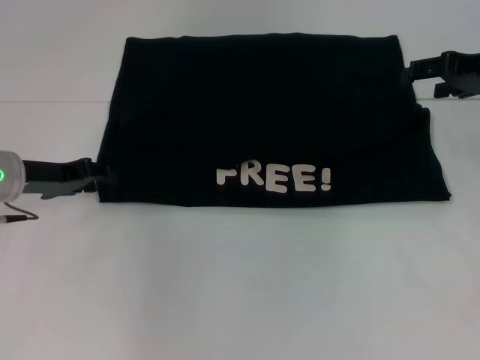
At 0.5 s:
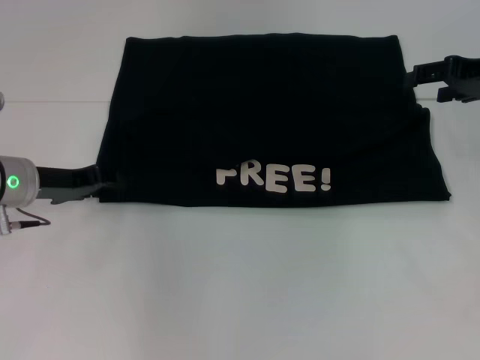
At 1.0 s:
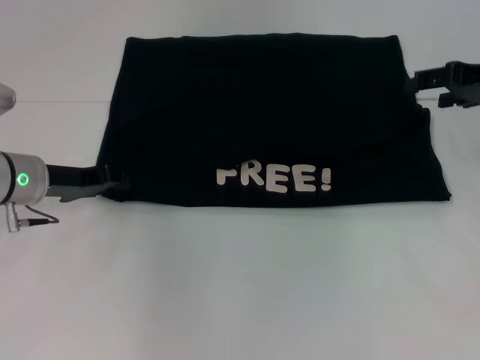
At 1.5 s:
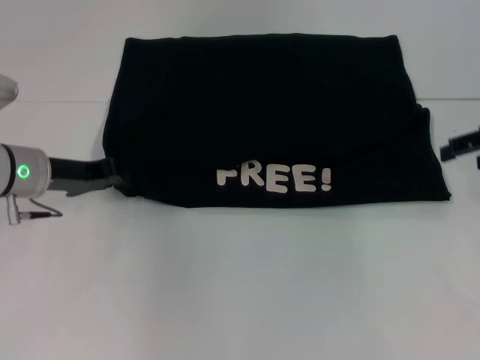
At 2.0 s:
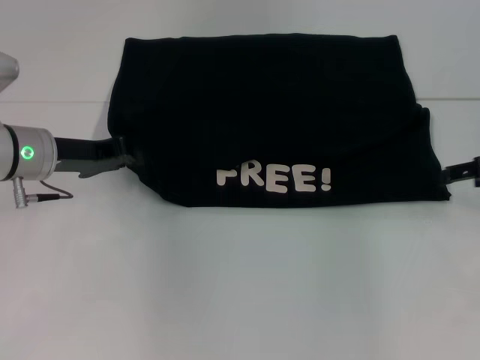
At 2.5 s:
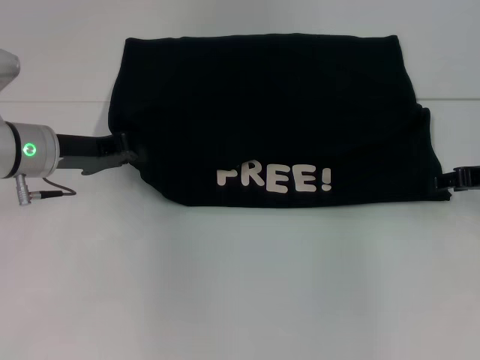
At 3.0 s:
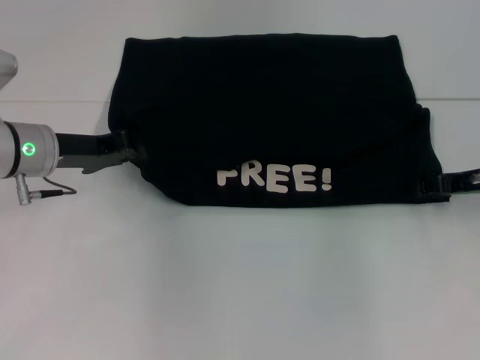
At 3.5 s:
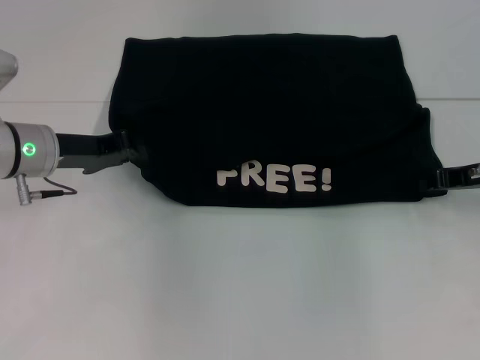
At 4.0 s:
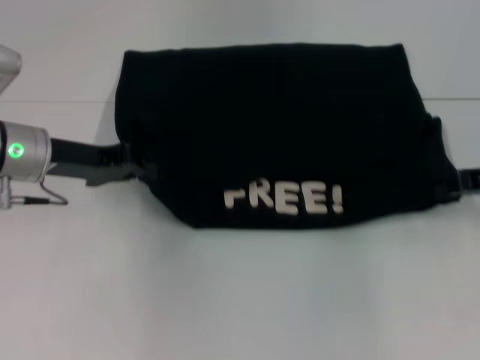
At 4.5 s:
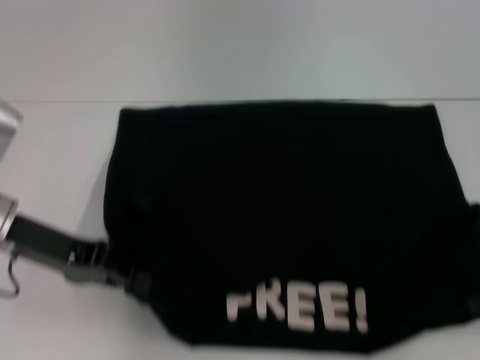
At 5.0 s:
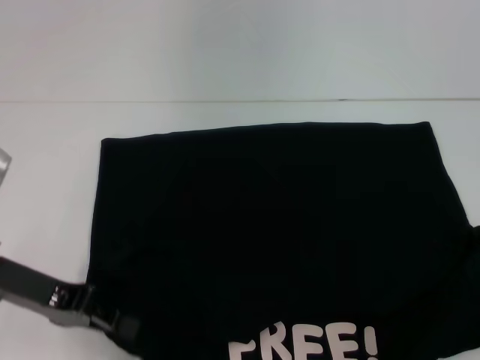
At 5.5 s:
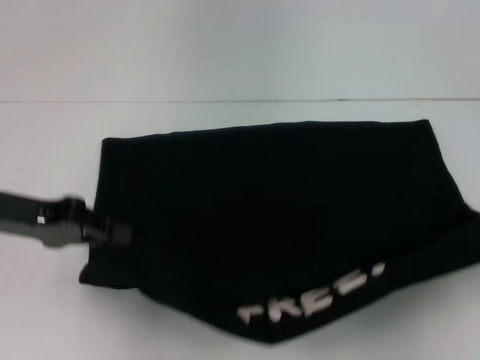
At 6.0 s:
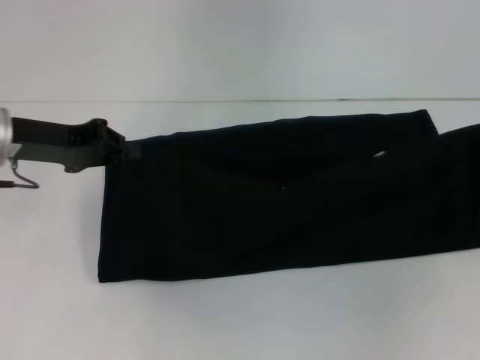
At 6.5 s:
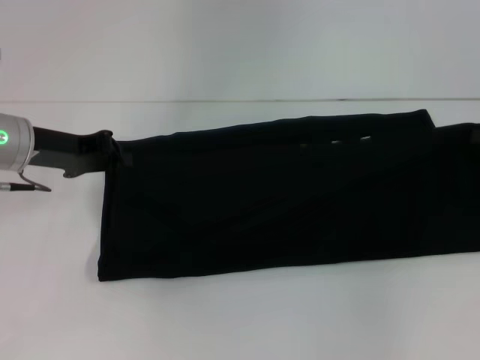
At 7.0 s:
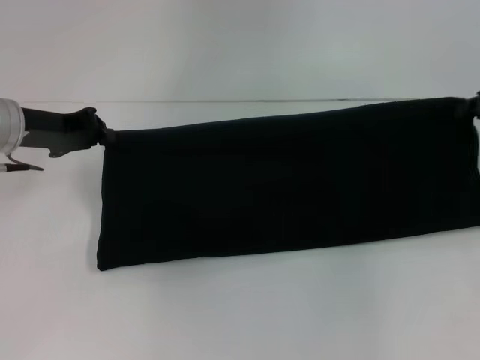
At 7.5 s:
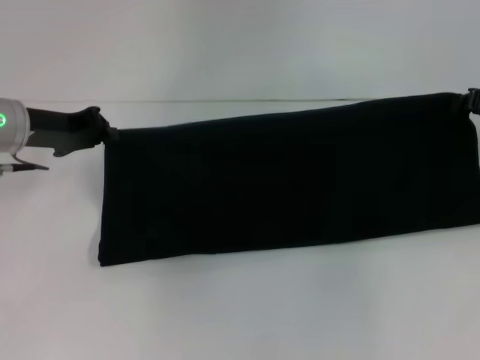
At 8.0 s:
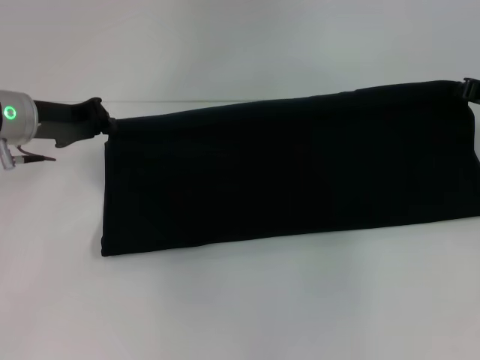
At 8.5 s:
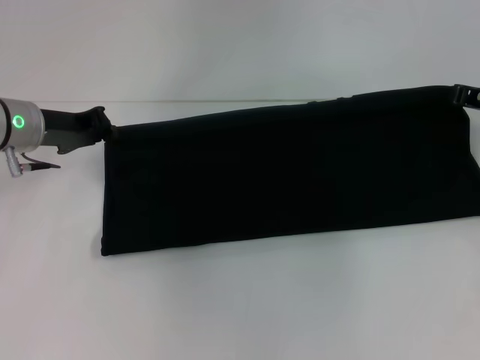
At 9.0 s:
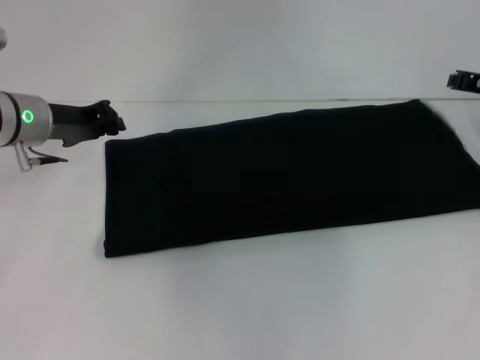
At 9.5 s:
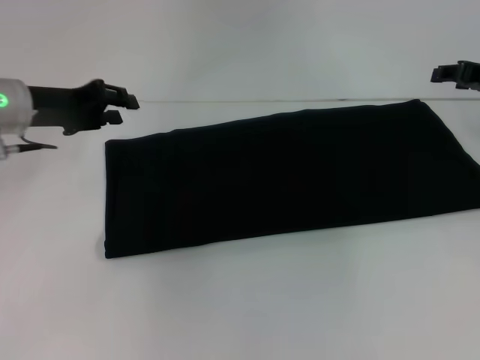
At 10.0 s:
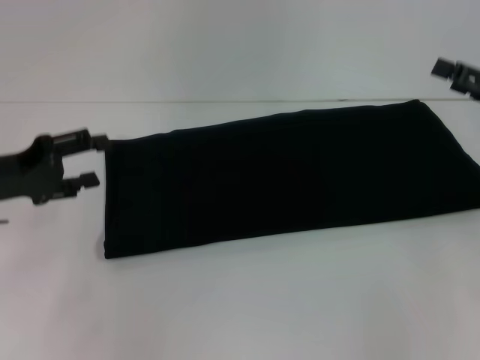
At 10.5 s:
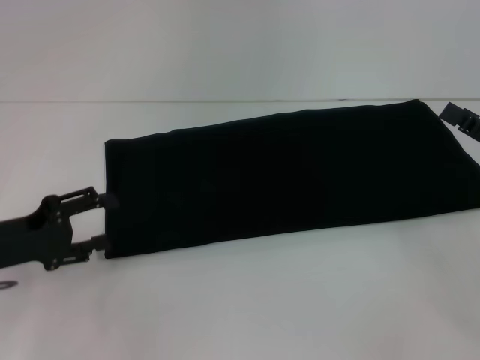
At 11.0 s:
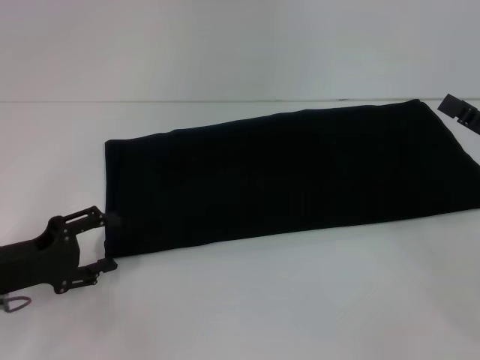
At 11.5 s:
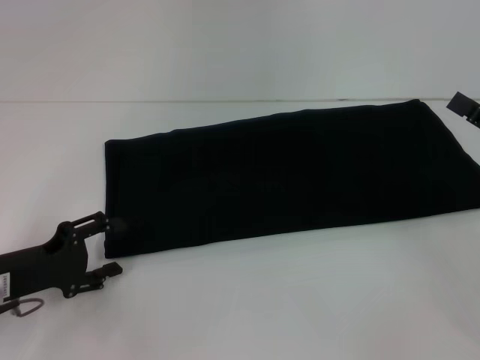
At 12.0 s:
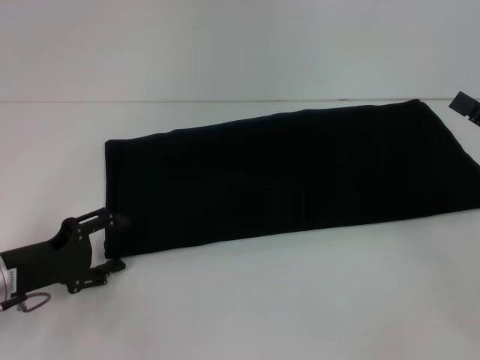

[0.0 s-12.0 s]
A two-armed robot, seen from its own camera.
Step, 0.0 to 4.5 s: Pull the clothes with your left hand.
Step, 0.0 to 4.5 s: Pull the clothes with your right hand.
Step, 5.0 to 9.0 s: Fold the clothes with your right hand.
0.0 to 2.0 s: The left gripper closes up. Meanwhile the right gripper goes some 10 cm downward and backward.
2.0 to 4.0 s: The right gripper closes its fingers.
4.0 to 6.0 s: The right gripper shifts some 5 cm to the right, and reaches about 10 cm backward, then returns, while the left gripper goes backward and returns, approximately 10 cm each way.
6.0 to 8.0 s: The right gripper shifts about 10 cm forward and to the left.
8.0 to 10.0 s: The right gripper travels backward by about 5 cm, and opens its fingers, while the left gripper moves backward and to the left, roughly 10 cm, and opens its fingers.
10.0 to 12.0 s: The left gripper heads downward and backward, covering about 10 cm. Meanwhile the right gripper shifts approximately 5 cm backward.

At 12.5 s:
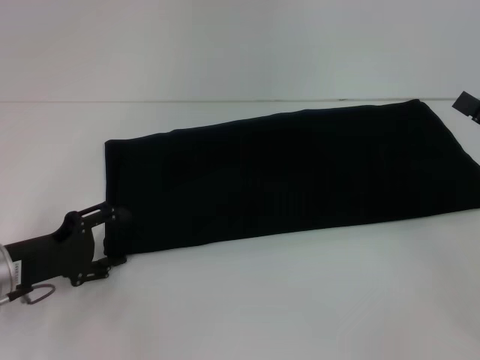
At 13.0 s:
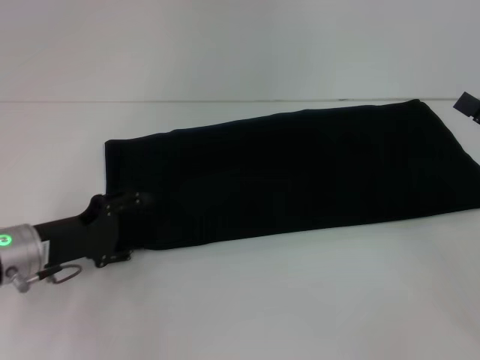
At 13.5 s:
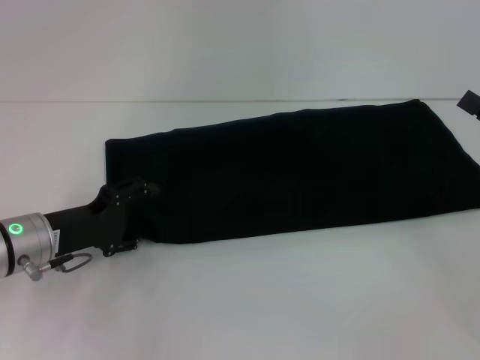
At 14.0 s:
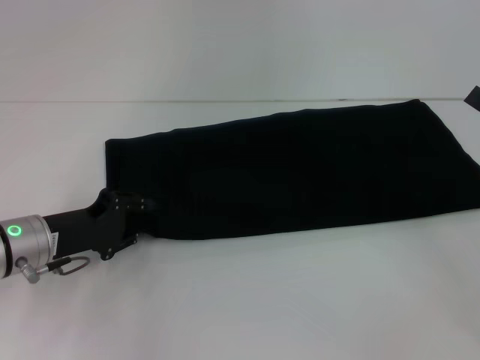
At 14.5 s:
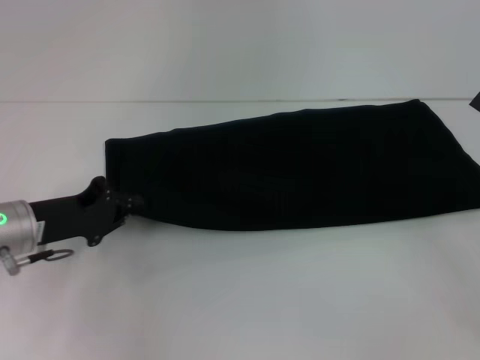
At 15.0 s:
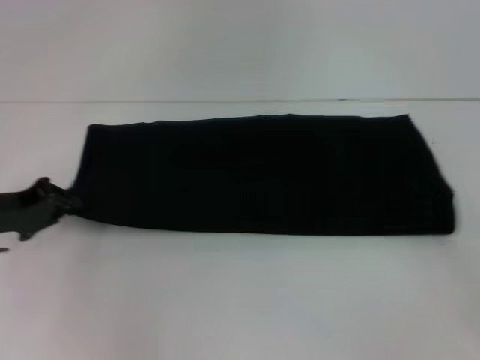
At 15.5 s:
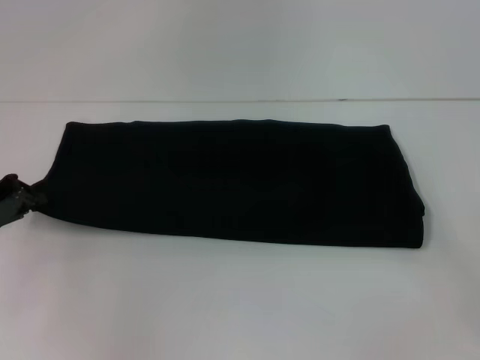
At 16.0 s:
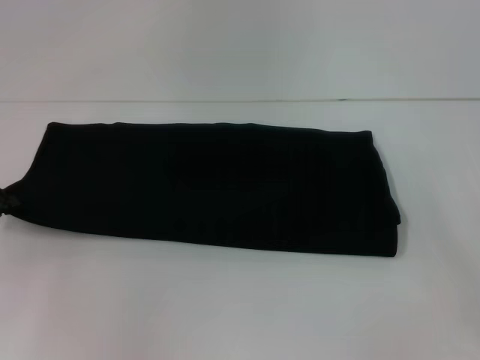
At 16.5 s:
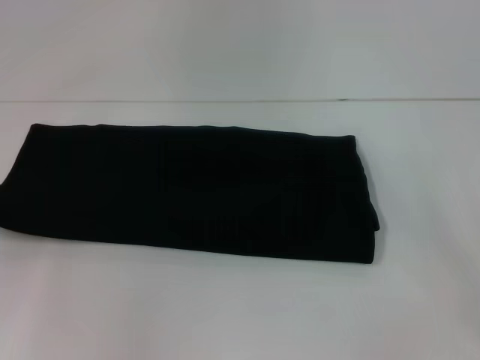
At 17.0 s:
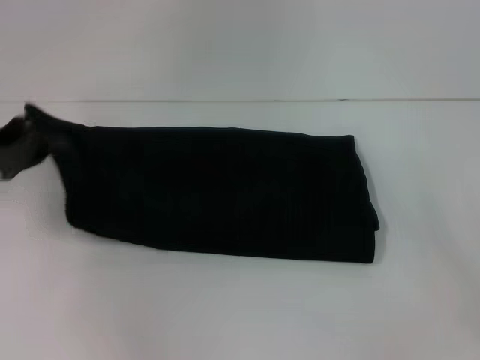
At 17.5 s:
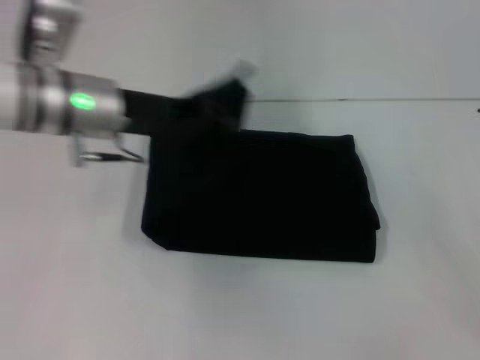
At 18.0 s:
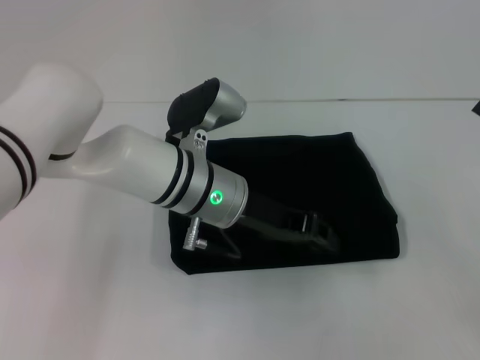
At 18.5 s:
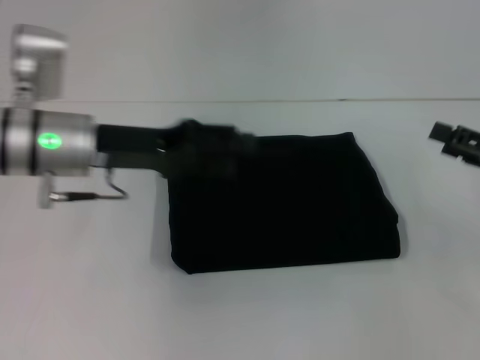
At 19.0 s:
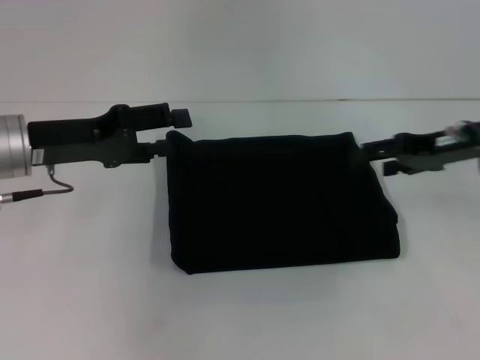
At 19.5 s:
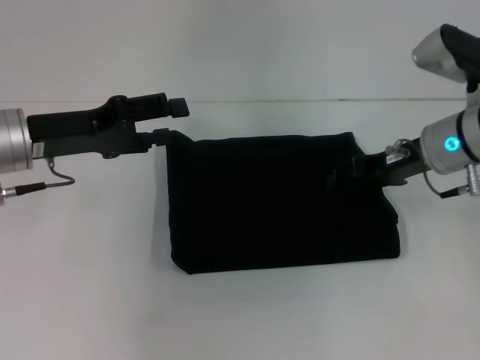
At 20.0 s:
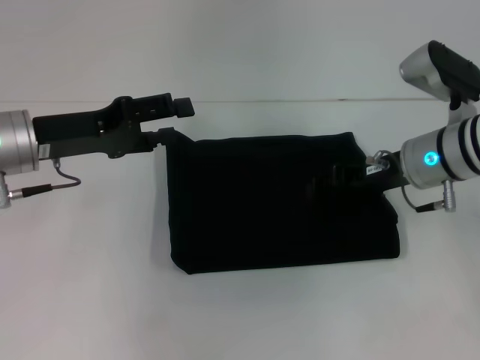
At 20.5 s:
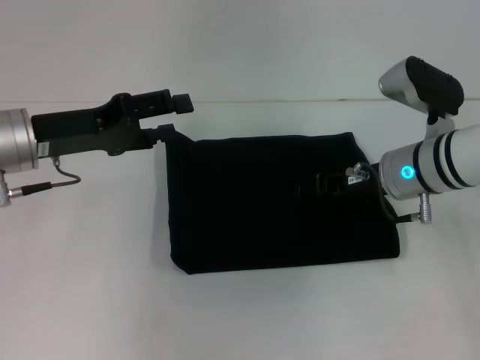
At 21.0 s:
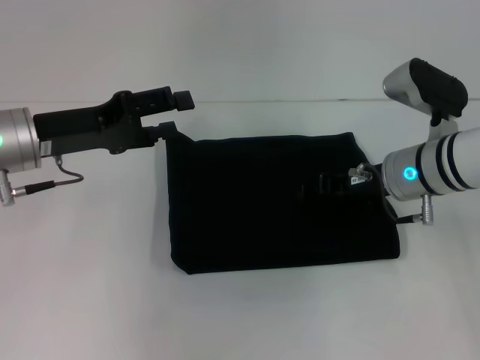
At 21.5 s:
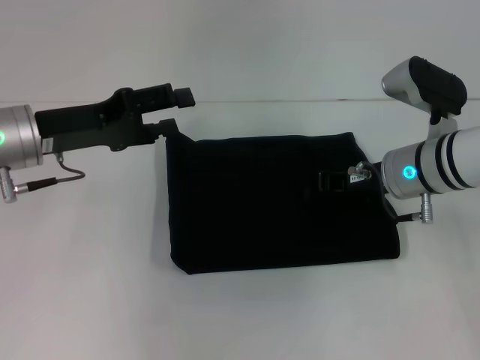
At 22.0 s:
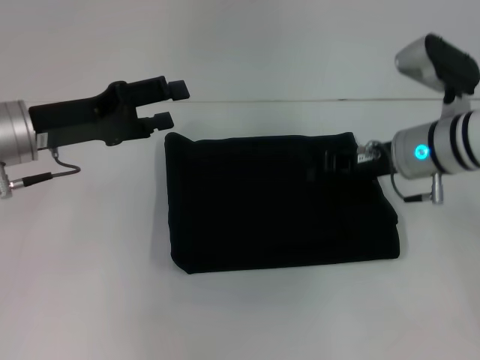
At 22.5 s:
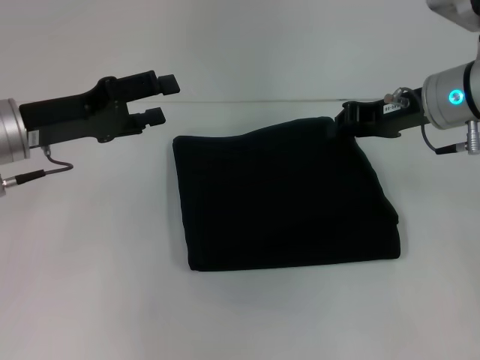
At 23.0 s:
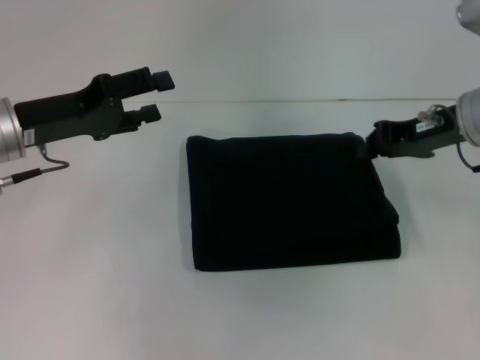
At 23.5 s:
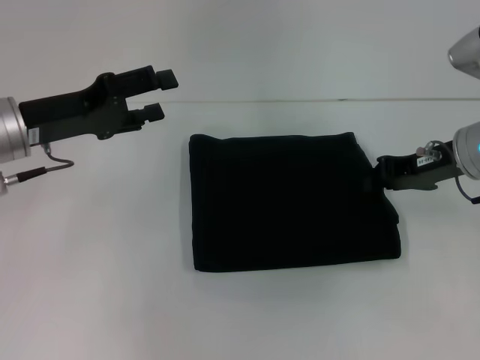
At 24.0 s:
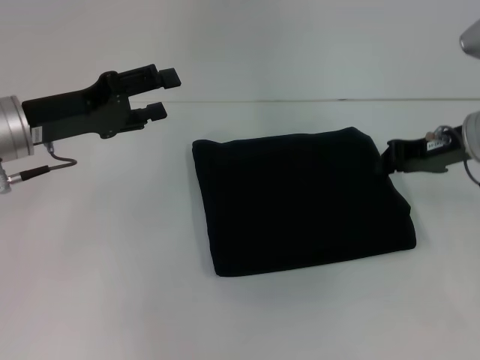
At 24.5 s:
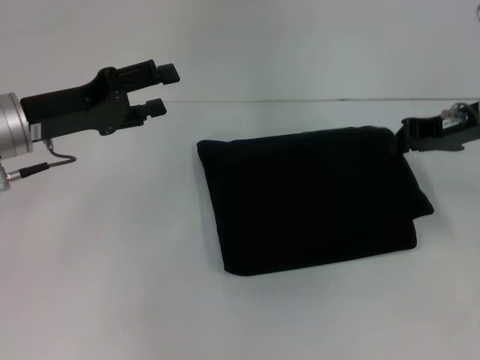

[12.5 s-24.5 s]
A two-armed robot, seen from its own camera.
Step, 12.5 to 18.0 s: Fold the clothes with your left hand.
12.5 to 14.5 s: The left gripper moves about 5 cm, and closes.
14.5 to 16.5 s: The left gripper moves to the left, approximately 10 cm.
16.5 to 18.5 s: The left gripper travels to the right by roughly 20 cm, and opens up.
18.5 to 20.5 s: The left gripper goes some 5 cm to the left, and opens up. Meanwhile the right gripper moves to the left and forward, about 20 cm, and closes its fingers.
20.5 to 22.5 s: The right gripper heads upward, covering some 10 cm, and closes.
22.5 to 24.5 s: The right gripper moves to the right, roughly 5 cm.

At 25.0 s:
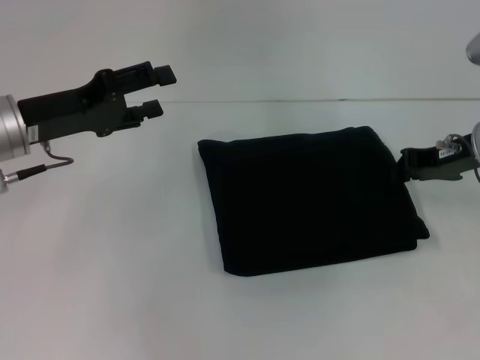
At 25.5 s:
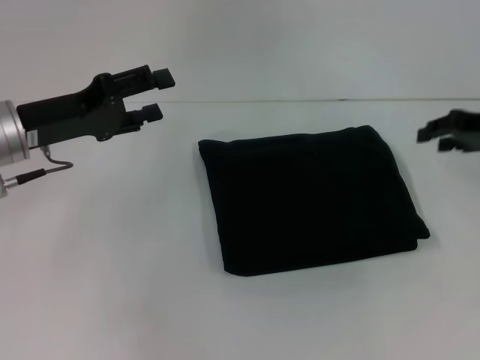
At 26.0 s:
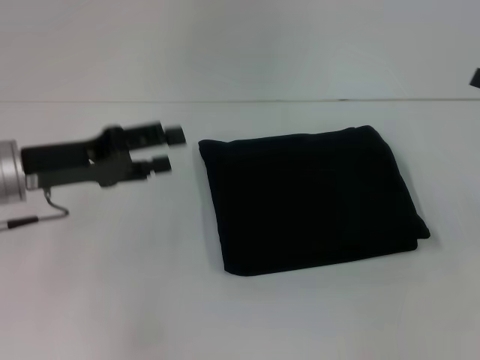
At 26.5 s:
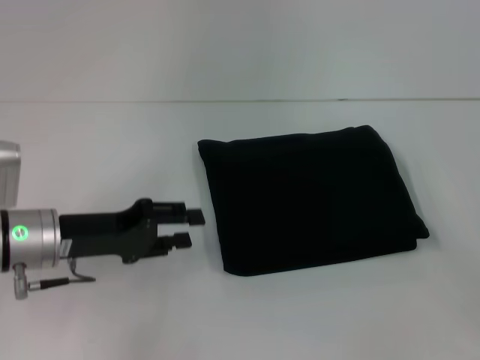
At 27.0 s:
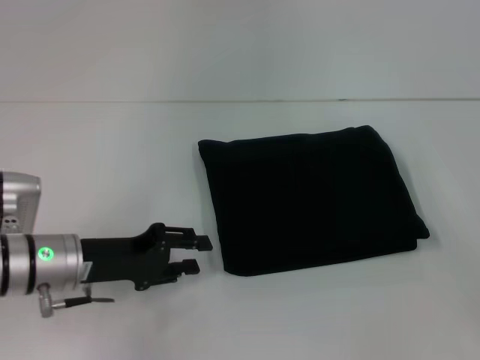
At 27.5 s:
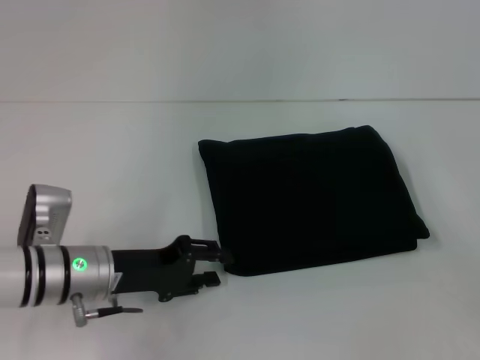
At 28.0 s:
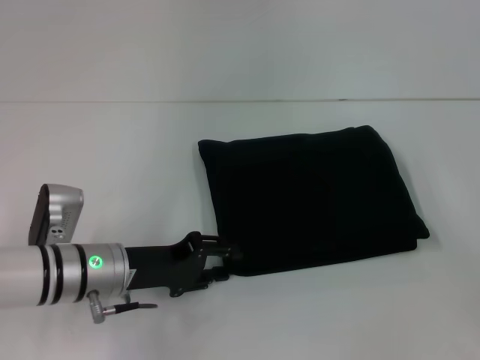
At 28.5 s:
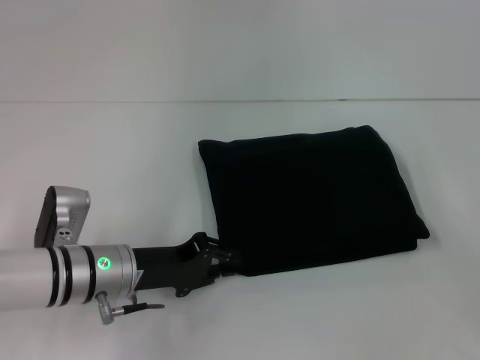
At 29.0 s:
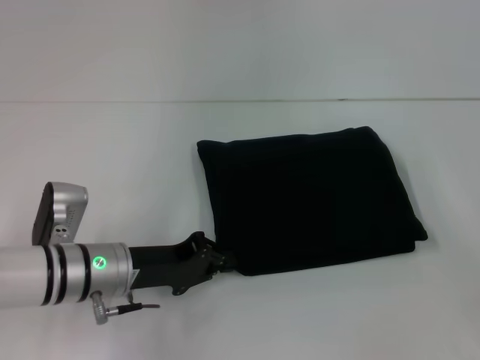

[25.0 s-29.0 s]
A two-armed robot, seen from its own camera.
25.0 to 27.0 s: The right gripper moves backward and to the right, about 15 cm, and opens up. The left gripper travels downward and backward by some 10 cm.
27.0 to 29.0 s: The left gripper closes up.
